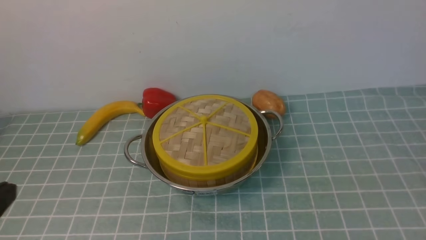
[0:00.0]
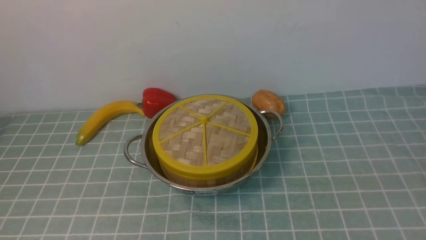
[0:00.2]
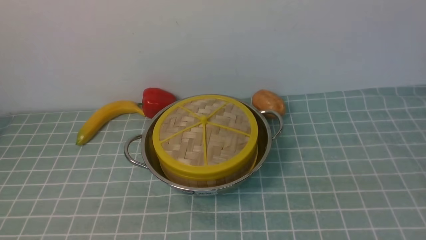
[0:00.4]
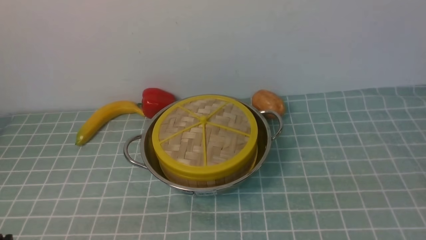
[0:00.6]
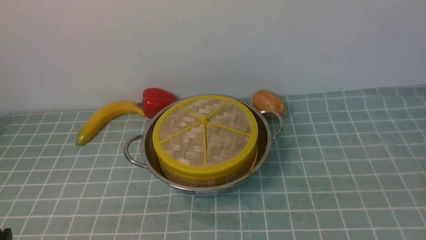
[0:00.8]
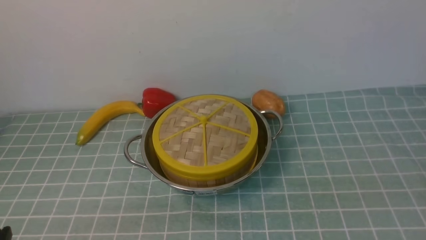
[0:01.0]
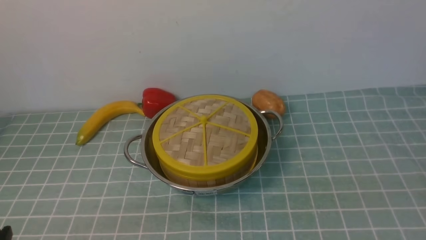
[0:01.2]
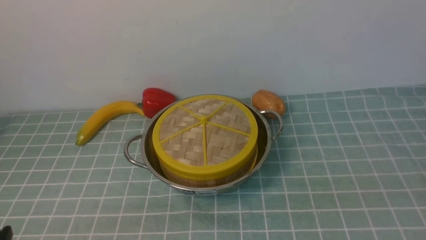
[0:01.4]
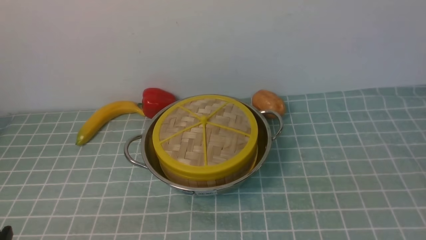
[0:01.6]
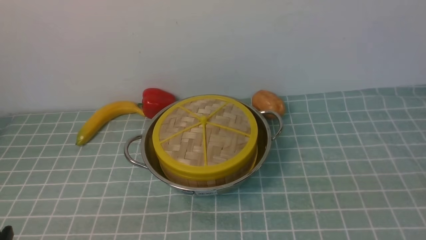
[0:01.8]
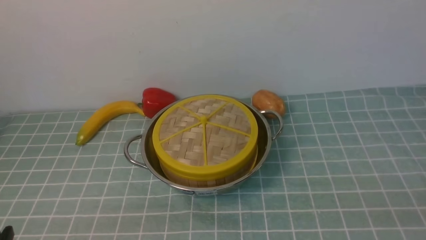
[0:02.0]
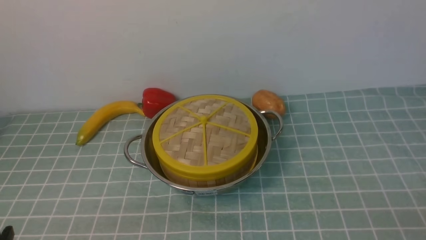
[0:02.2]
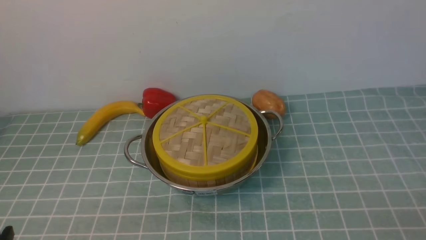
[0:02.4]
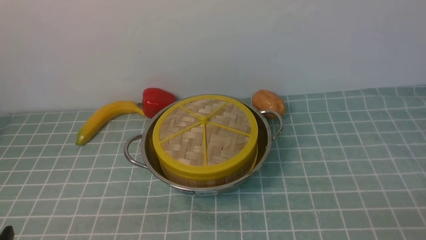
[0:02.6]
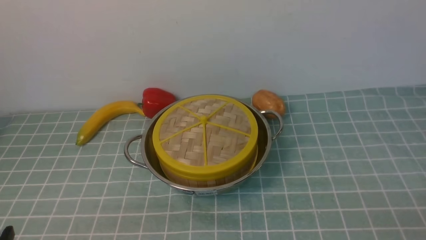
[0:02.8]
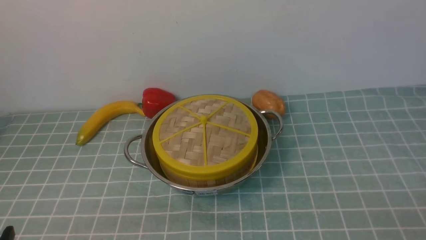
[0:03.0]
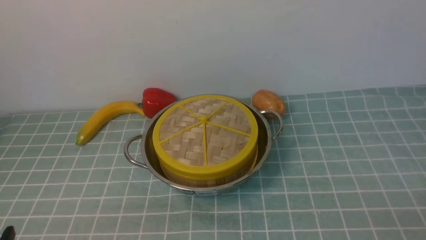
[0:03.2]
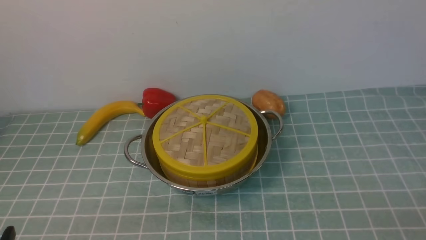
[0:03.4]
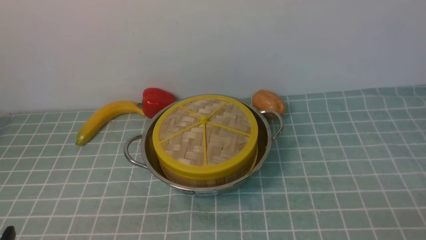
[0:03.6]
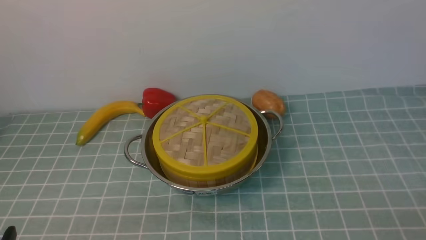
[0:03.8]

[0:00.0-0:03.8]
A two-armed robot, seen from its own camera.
Task of the whole recording: place the steamer in the pot on the blue tablecloth, and put the lid on the steamer.
2.6 to 3.8 s: Both grippers stay put.

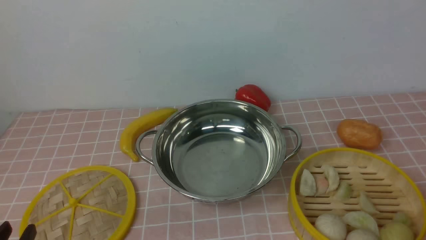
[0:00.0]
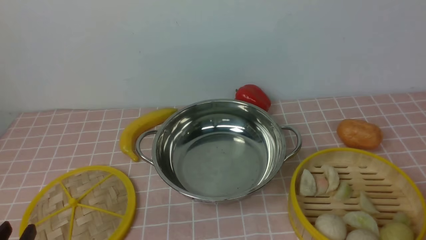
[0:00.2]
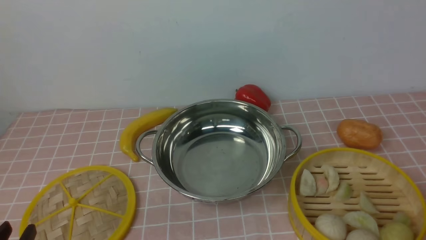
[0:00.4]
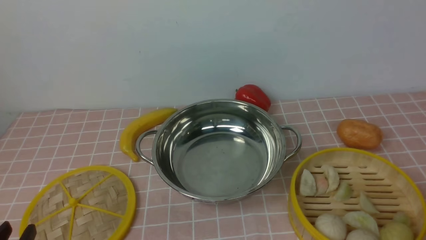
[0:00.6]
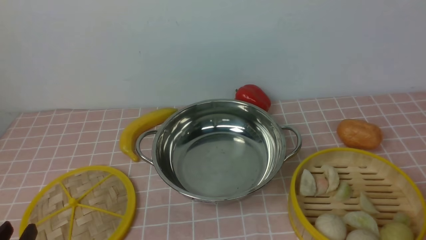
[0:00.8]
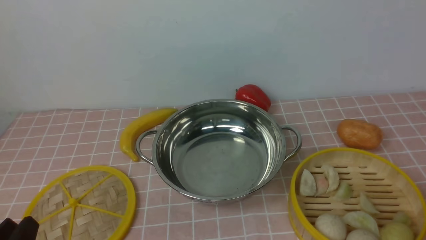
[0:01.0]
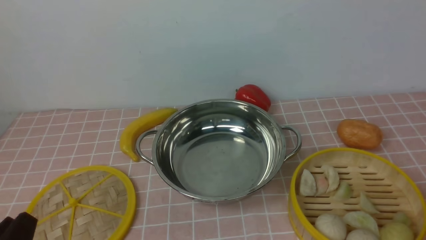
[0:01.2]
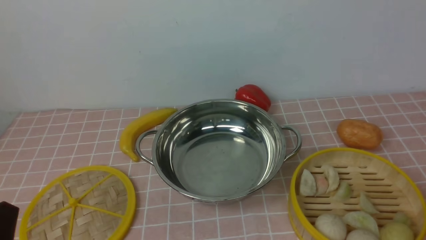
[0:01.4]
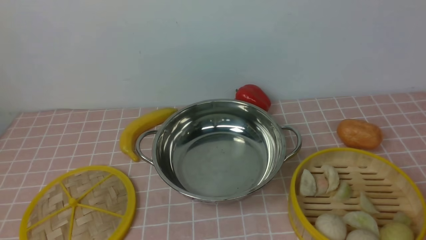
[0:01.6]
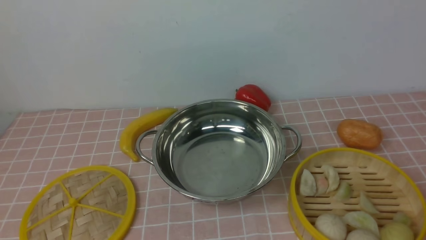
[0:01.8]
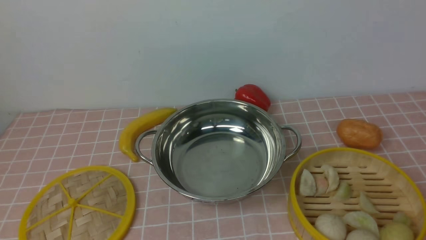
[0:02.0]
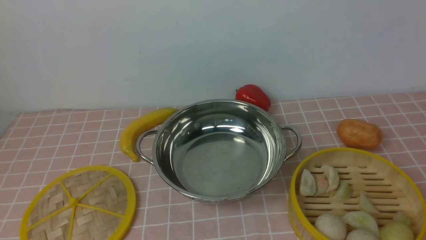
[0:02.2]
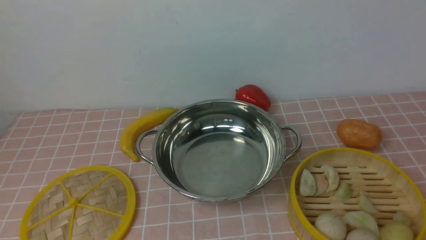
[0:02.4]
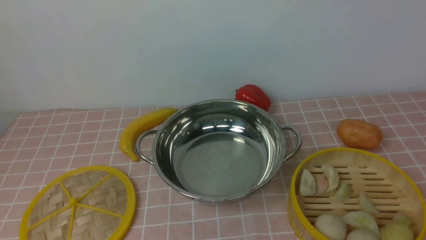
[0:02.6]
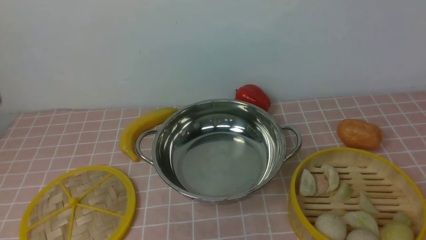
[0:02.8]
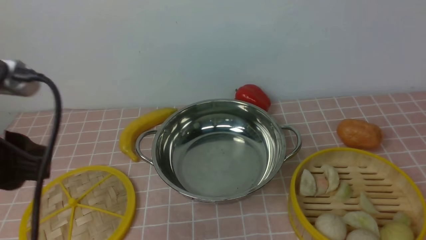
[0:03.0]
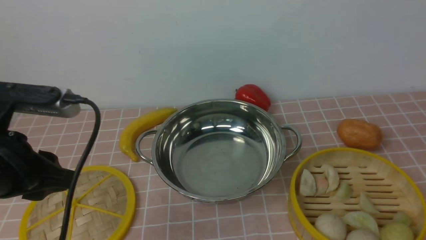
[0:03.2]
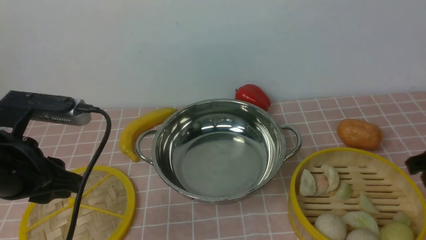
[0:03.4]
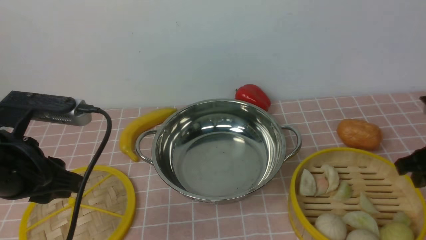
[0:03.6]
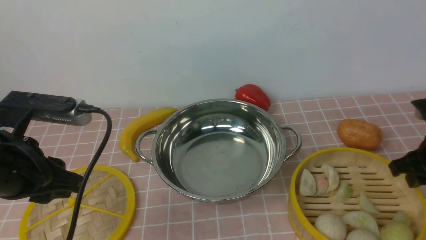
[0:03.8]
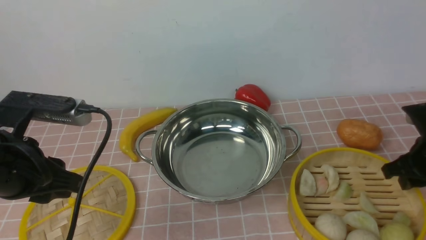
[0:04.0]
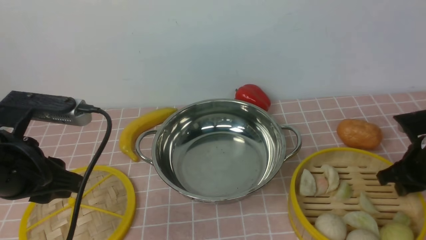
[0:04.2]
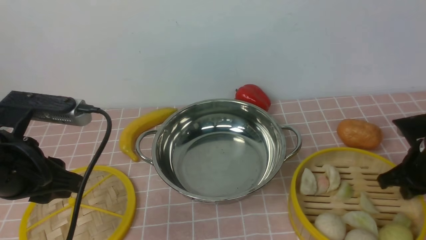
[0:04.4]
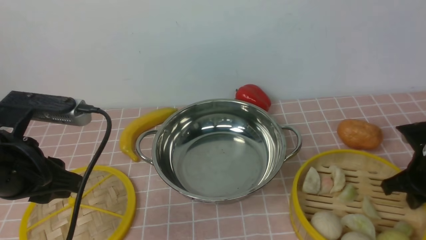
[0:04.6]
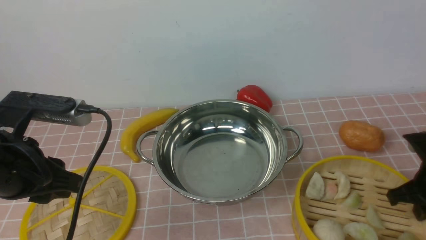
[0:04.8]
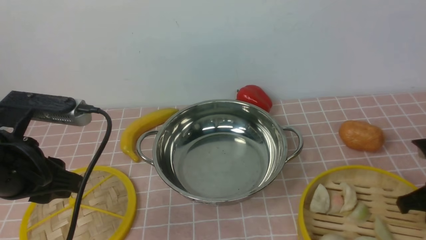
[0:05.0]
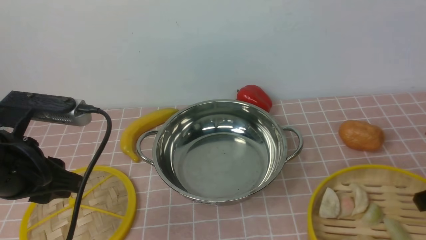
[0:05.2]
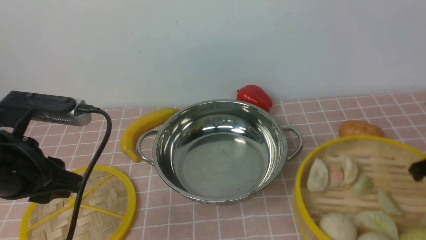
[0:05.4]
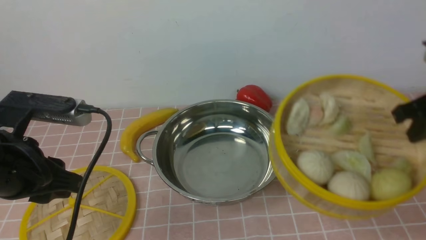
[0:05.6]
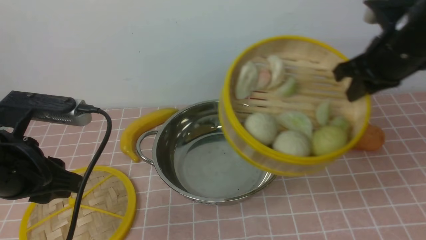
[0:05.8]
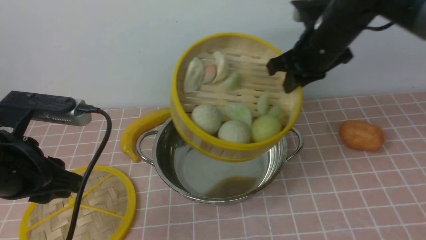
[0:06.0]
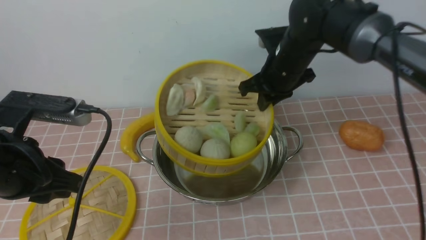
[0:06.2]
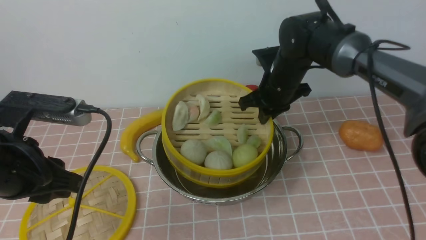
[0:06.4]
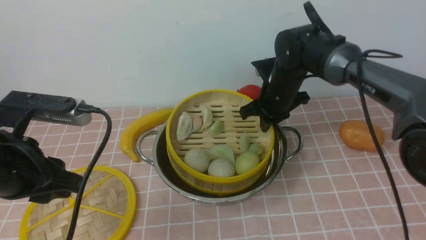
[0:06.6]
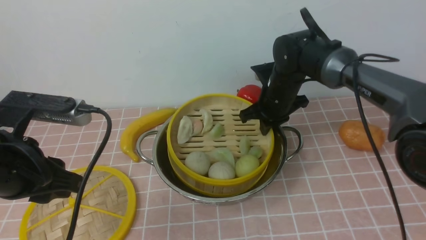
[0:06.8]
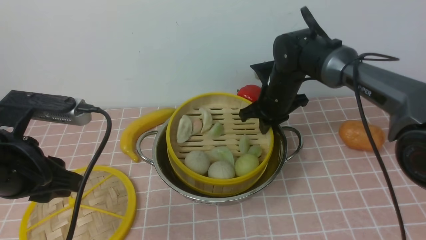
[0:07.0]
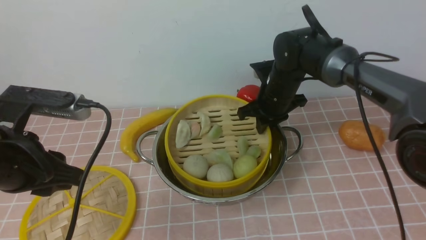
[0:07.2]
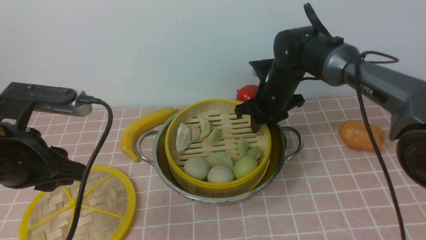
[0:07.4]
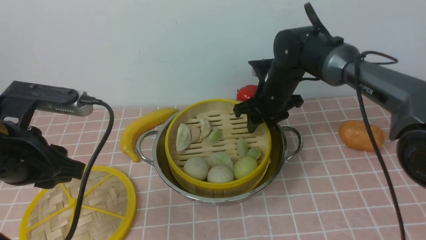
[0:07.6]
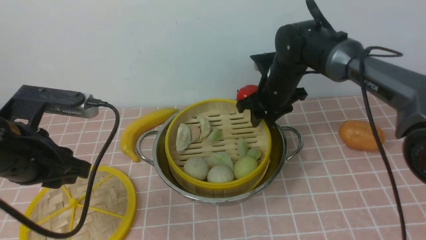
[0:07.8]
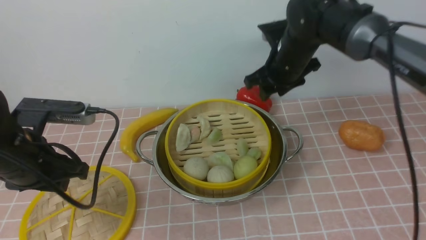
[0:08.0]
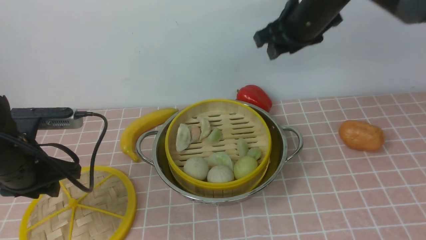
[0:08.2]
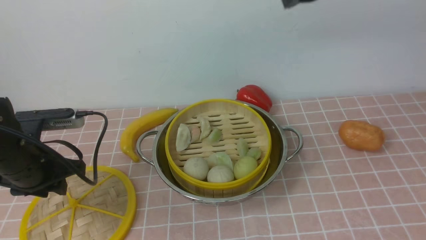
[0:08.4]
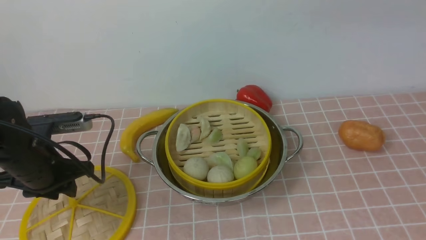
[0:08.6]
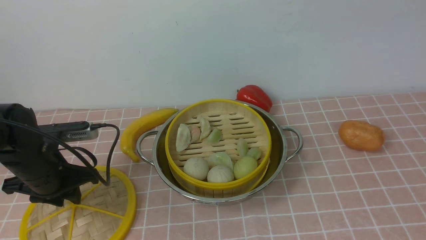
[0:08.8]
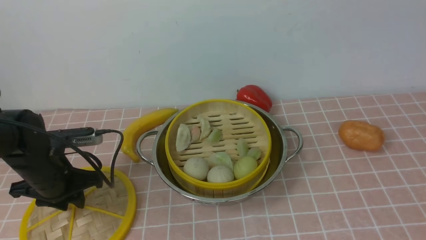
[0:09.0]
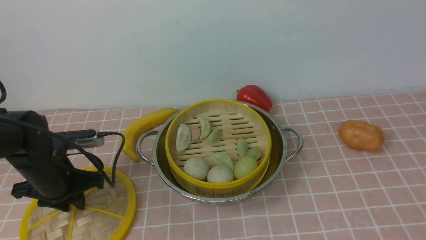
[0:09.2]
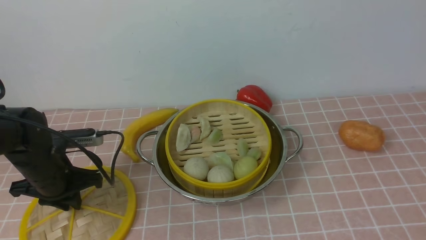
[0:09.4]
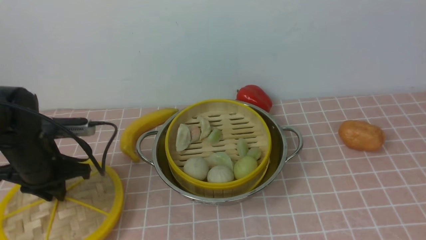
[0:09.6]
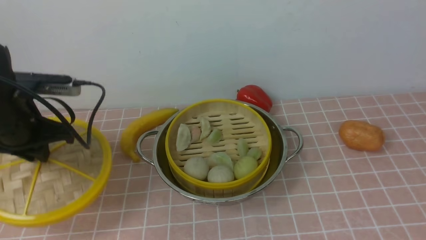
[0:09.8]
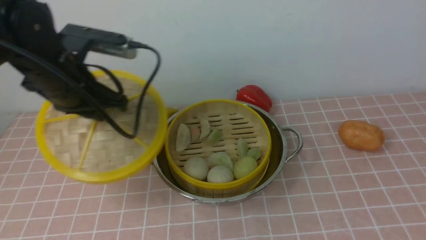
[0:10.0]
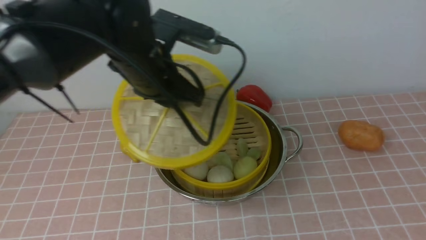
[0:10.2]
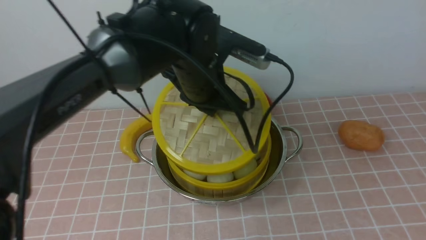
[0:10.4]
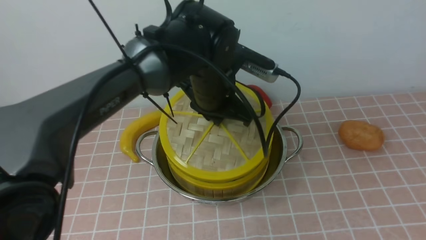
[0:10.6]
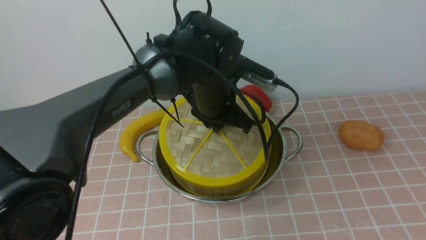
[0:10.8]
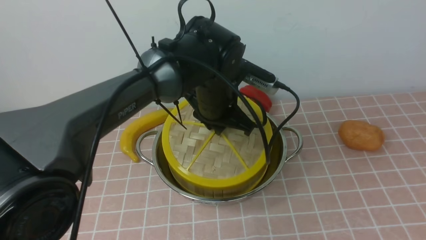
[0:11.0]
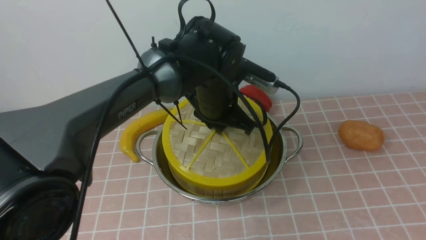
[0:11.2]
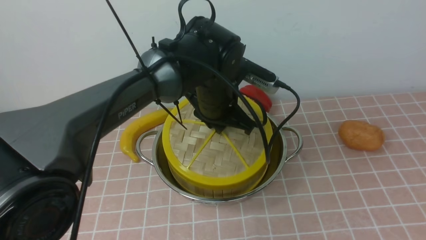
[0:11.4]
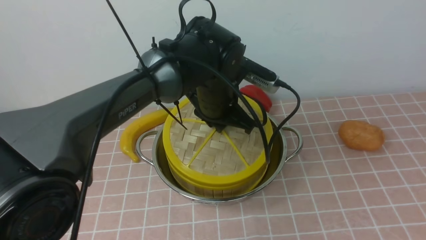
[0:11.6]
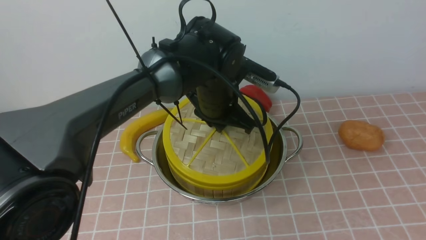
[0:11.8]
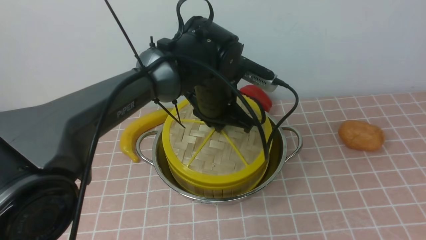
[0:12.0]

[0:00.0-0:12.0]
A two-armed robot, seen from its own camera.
Task of the whole recording: place the steamer in the pot on the pink tablecloth, and put the lid on the steamer.
Step, 0.0 to 5.0 s: use the right arm to lift the steamer closest to it.
Step, 5.4 to 7.8 s: use the right arm to put the steamer into the iron steamer pot in the middle.
Step, 8.0 to 9.6 s: use the left arm to lift the lid of the steamer.
1.6 to 3.0 s: The left gripper is displaced upward and forward by some 15 cm.
3.0 to 4.4 s: The left gripper shifts roughly 5 cm downward, while the right gripper moves downward and forward, roughly 20 cm, and closes up.
4.4 to 6.0 s: The right gripper is displaced to the left, upward and forward by approximately 25 cm.
6.0 to 7.6 s: The right gripper moves downward and to the left, about 10 cm, and opens its fingers.
7.6 to 9.0 s: The left gripper moves downward and forward, some 15 cm; the right gripper travels upward and backward by approximately 50 cm.
9.0 to 10.4 s: The left gripper travels to the right and upward by some 25 cm, while the right gripper travels downward and backward by about 10 cm.
10.4 to 12.0 s: The left gripper moves approximately 5 cm.

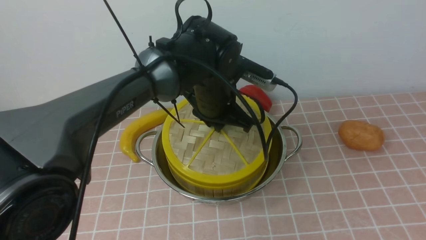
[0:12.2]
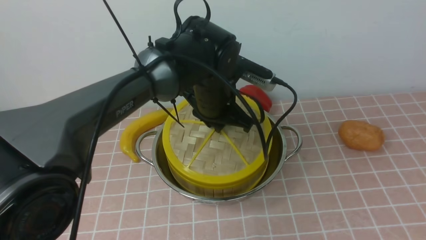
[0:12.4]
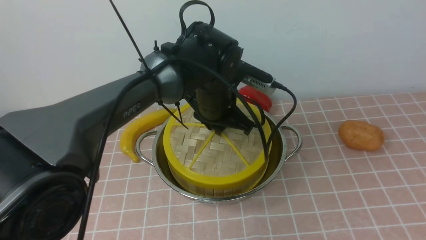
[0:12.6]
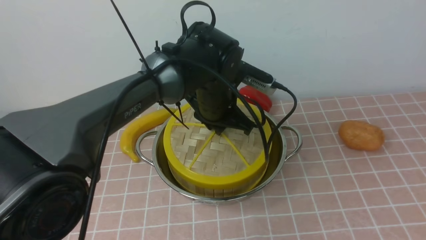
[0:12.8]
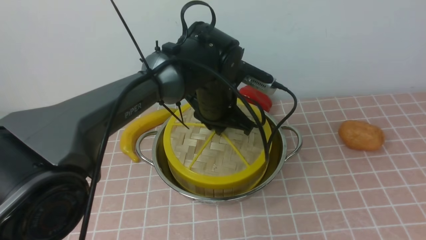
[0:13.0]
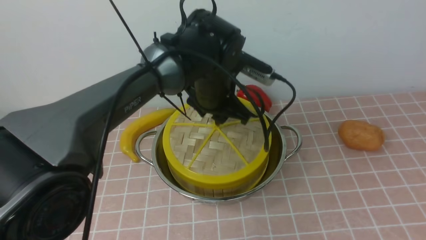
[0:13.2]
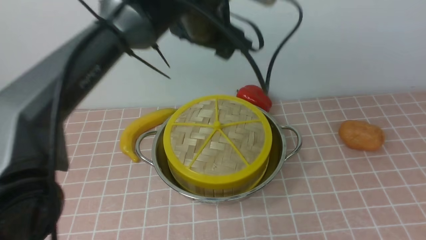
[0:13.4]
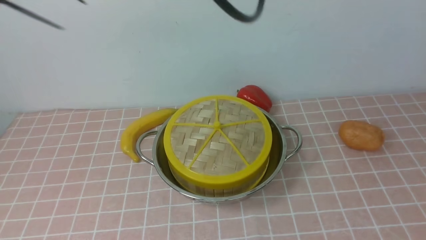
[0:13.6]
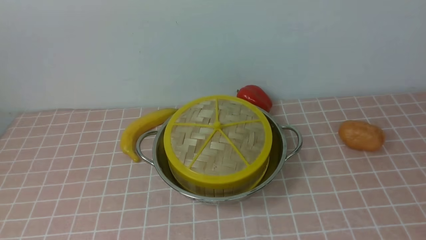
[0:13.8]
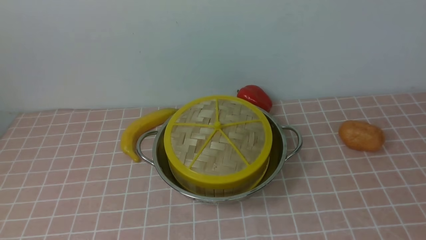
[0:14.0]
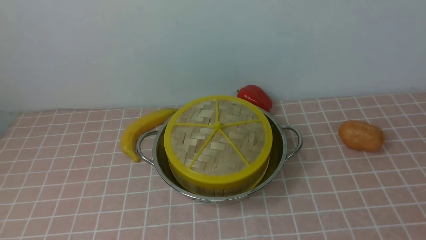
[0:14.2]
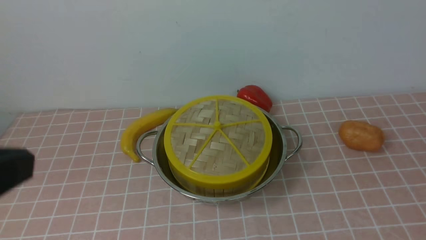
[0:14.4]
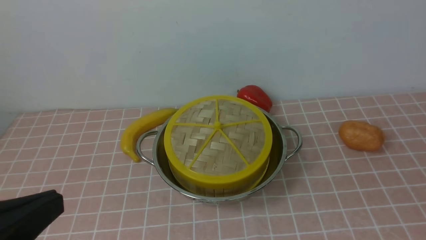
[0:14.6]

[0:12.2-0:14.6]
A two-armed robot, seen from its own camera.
Task of the whole recording: place the steamer in the pot on the pink tablecloth, and put the lid on the steamer.
12.2 to 13.4 s: The left gripper travels upward by roughly 15 cm, and opens.
13.4 to 14.6 s: The right gripper heads downward, covering approximately 15 cm, and closes its fingers, while the left gripper shifts roughly 35 cm backward and to the left, and closes its fingers.
